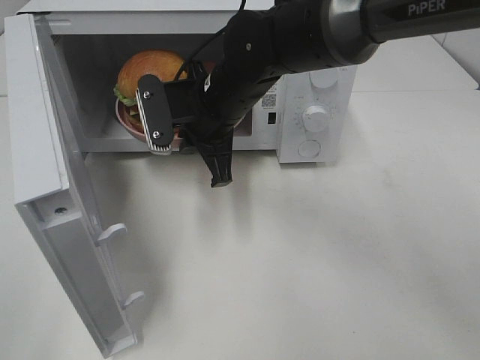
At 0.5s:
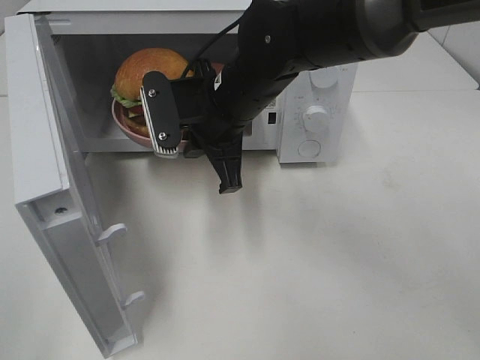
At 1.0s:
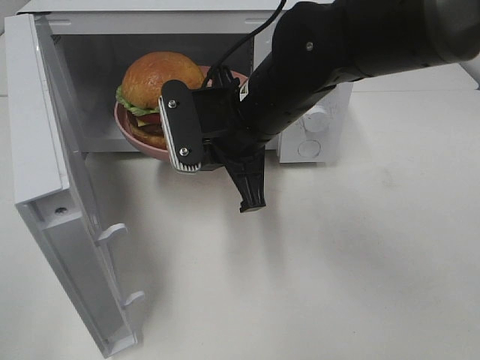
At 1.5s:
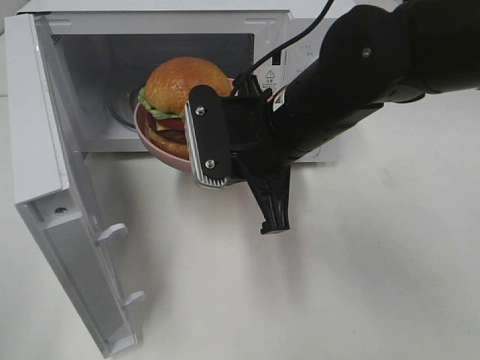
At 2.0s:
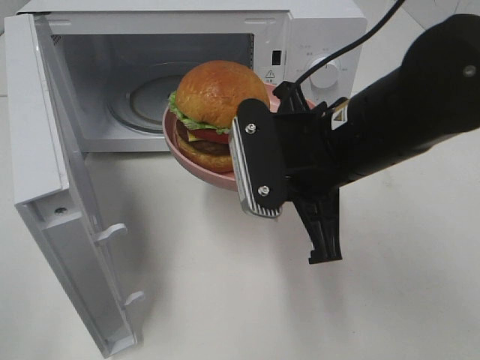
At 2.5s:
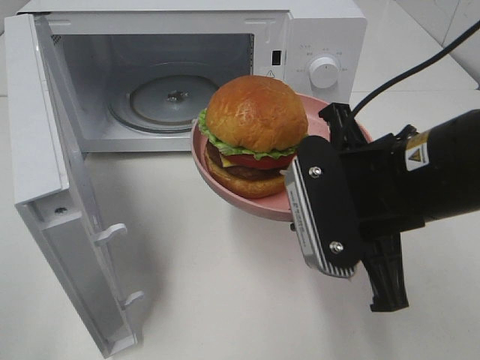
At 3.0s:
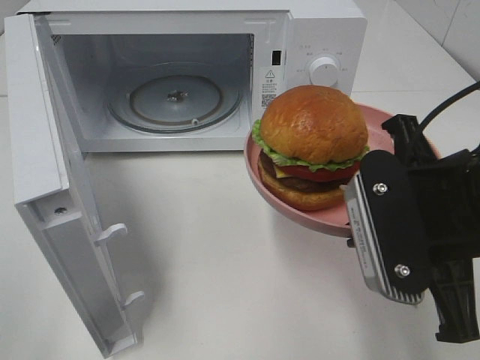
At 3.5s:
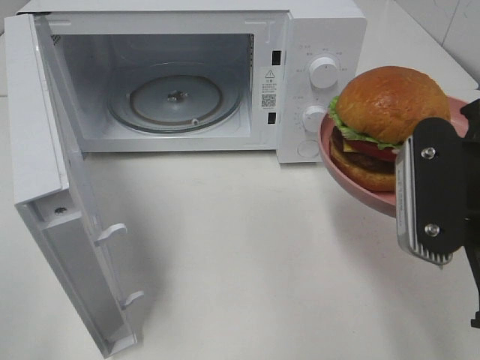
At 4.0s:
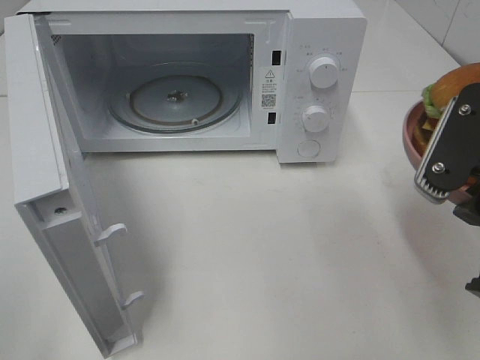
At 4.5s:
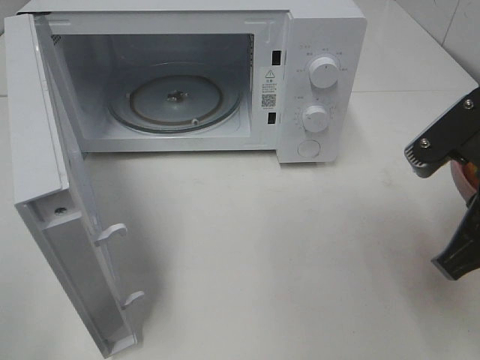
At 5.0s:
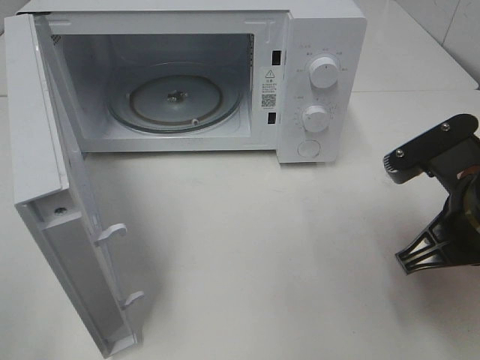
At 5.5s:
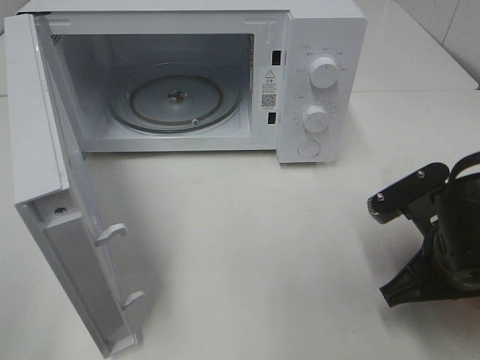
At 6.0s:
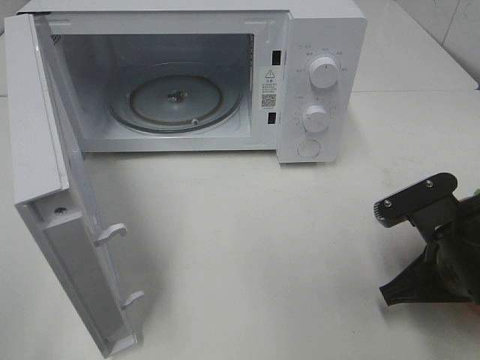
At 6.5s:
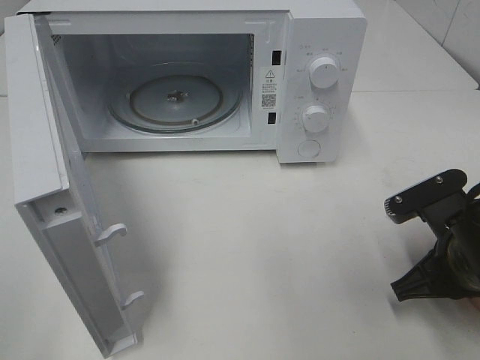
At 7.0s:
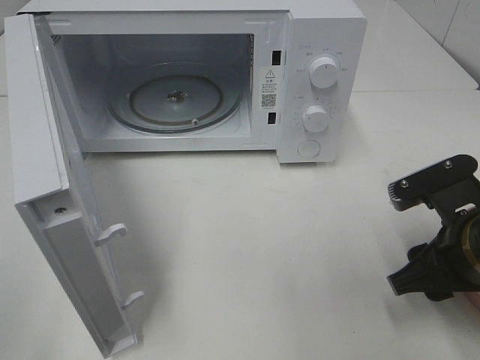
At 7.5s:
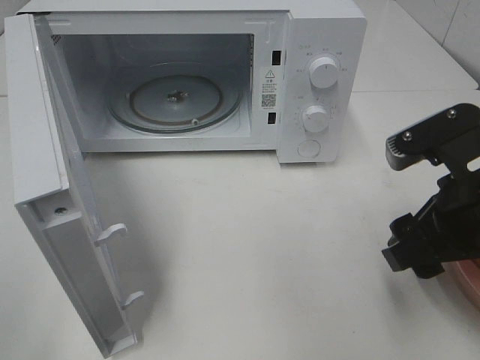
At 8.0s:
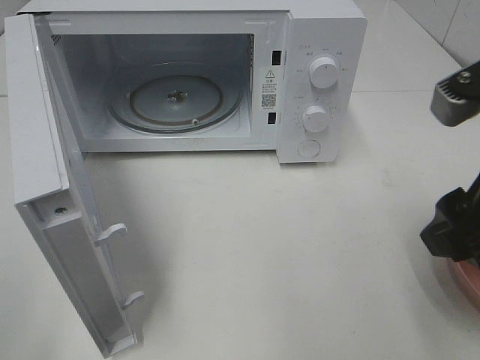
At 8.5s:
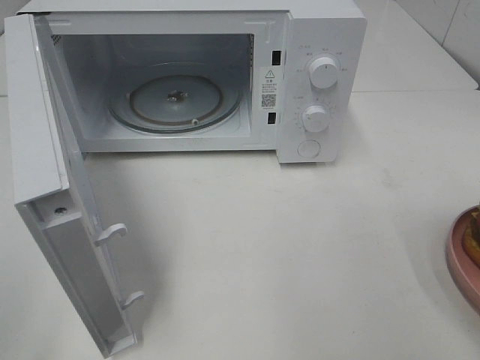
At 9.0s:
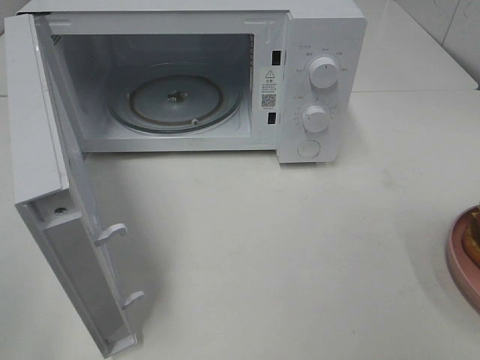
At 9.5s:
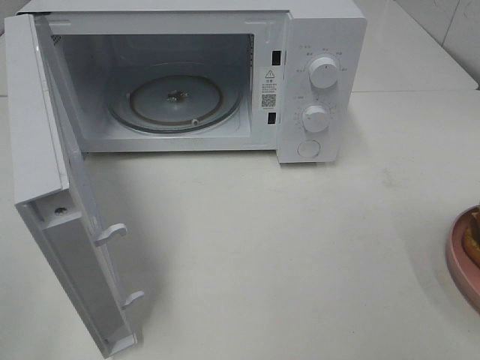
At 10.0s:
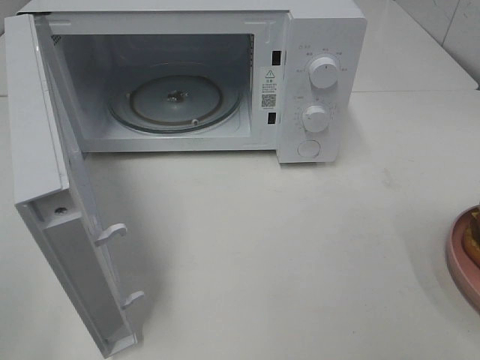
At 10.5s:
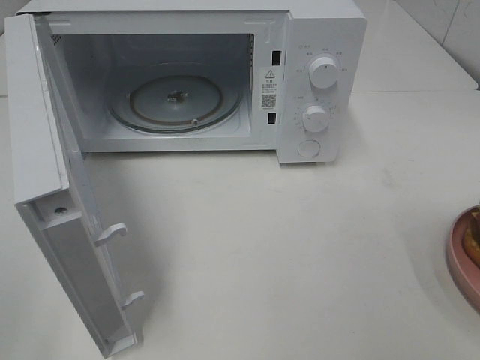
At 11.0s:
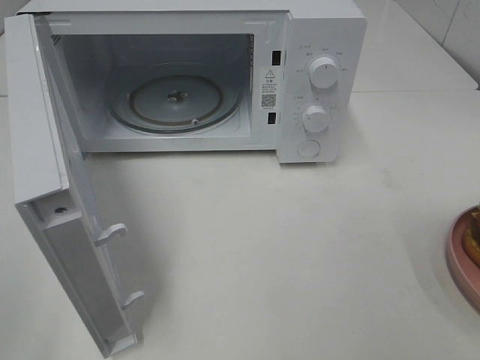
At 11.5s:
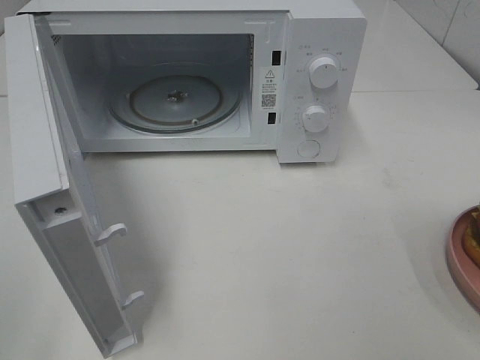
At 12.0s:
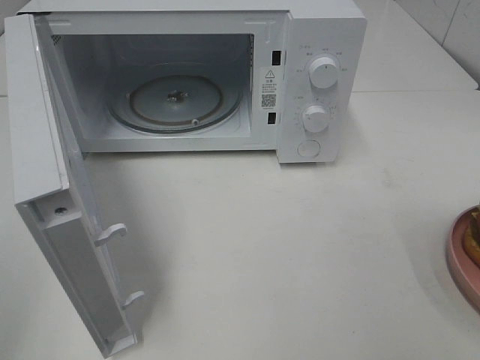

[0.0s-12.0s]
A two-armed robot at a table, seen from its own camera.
Task of the whole recording: Heat the burger.
Step, 0.0s to 6.5s: Right hand: place the plate on the table.
0.0s to 2.0s: The right gripper goes approximately 15 cm backward and to the right.
2.0s to 4.0s: The right gripper moves to the right and backward, roughly 15 cm.
4.0s to 6.0s: The right gripper shifts approximately 15 cm downward.
6.0s to 8.0s: The right gripper shifts approximately 15 cm upward, and opens.
8.0s to 10.0s: The right gripper heads backward and to the right, covering about 20 cm.

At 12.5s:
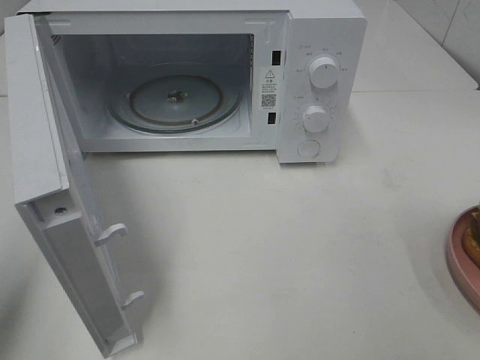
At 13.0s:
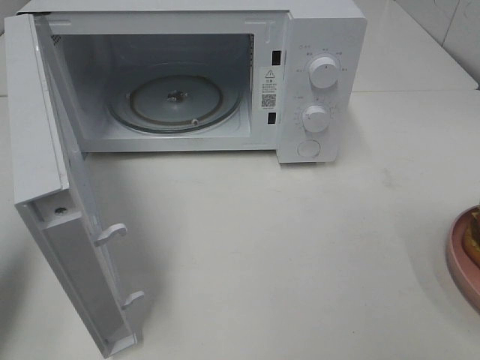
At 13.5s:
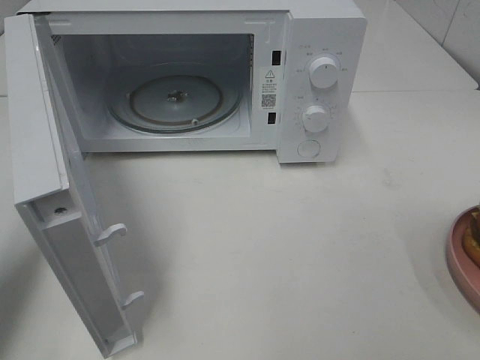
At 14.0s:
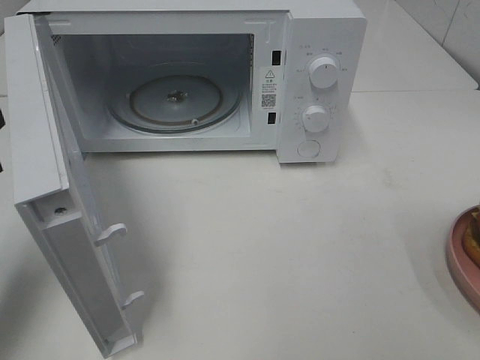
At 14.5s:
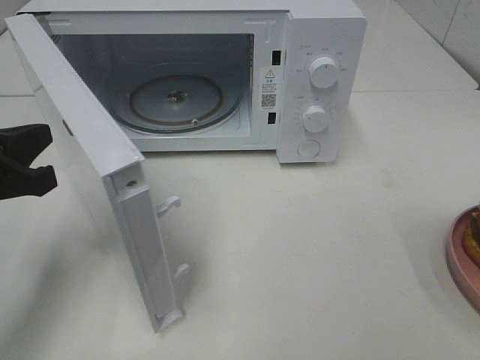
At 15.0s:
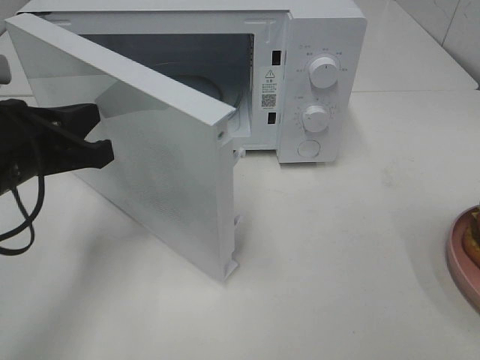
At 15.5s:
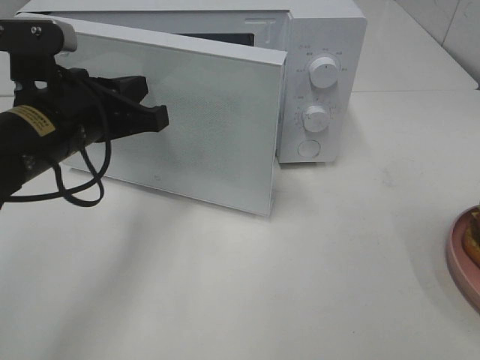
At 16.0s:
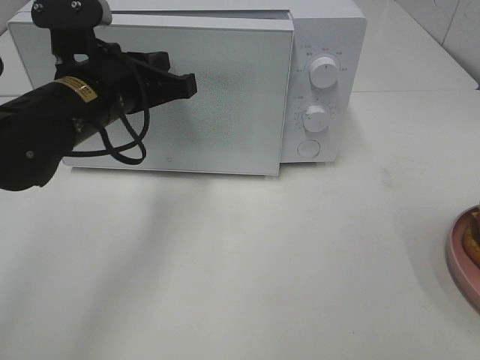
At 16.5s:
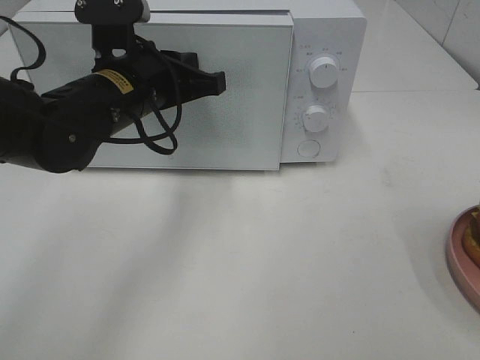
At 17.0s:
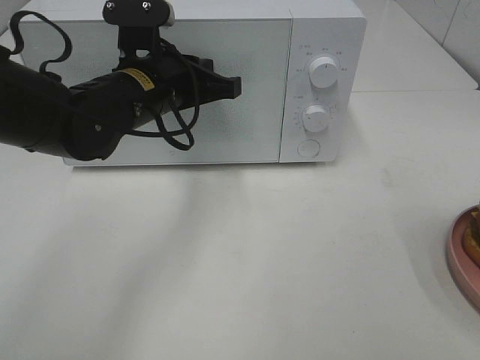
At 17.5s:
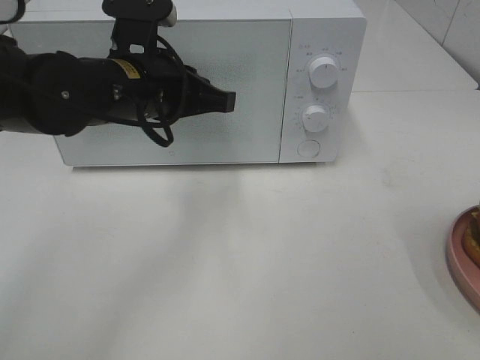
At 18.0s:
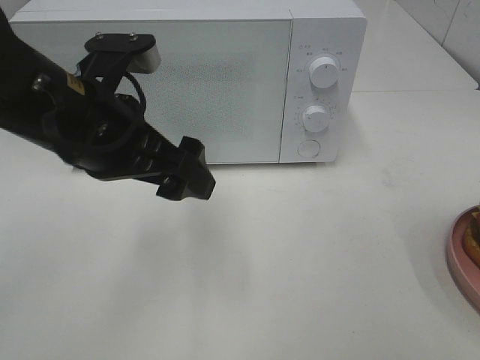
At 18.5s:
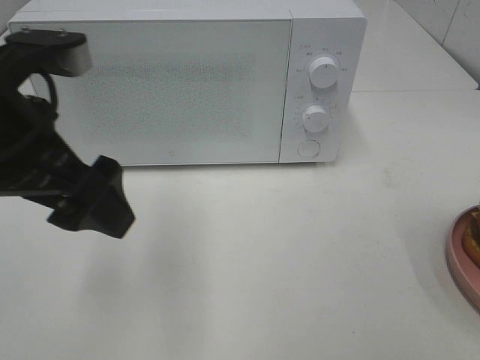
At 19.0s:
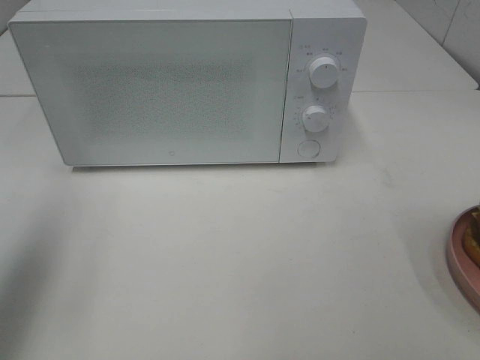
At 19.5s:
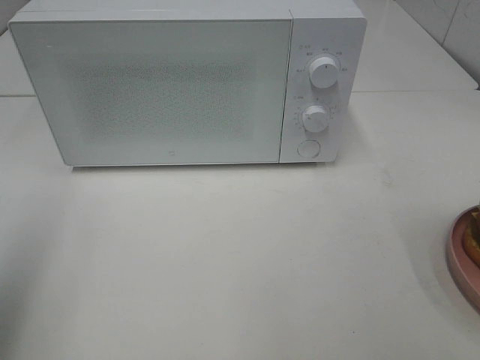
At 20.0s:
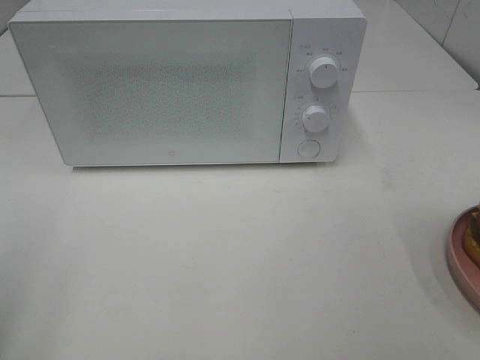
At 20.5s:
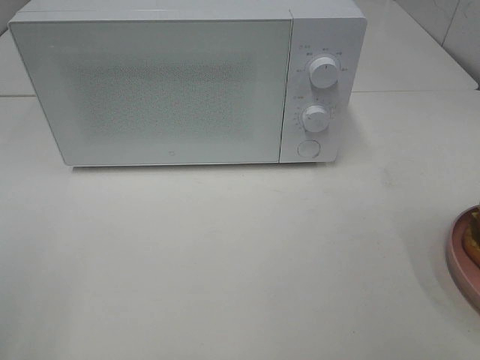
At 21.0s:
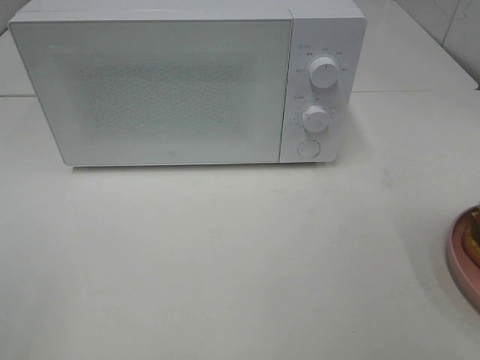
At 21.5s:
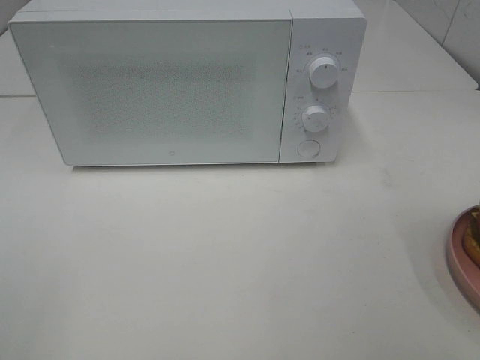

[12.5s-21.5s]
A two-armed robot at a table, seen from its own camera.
Task of the whole recording: Heat the burger.
Step, 12.5s to 17.0s: Left hand: close the microwave door.
12.5s to 14.5s: The left gripper is displaced downward, forward and to the right by some 15 cm.
14.5s to 17.0s: The left gripper travels to the right and forward by about 20 cm.
17.0s to 19.5s: The left gripper goes about 35 cm to the left, backward and upward, and opens its fingers.
19.5s to 21.5s: The left gripper goes about 15 cm backward and downward.

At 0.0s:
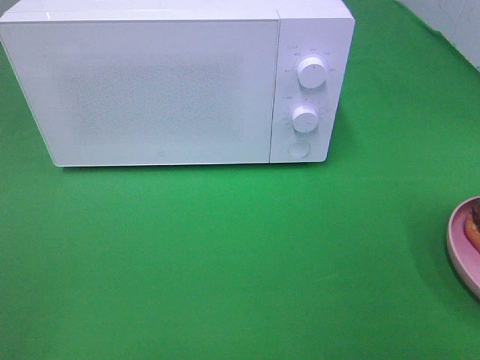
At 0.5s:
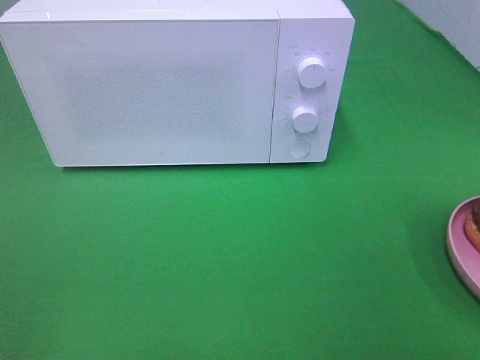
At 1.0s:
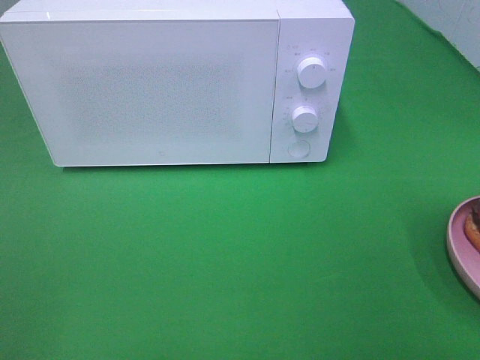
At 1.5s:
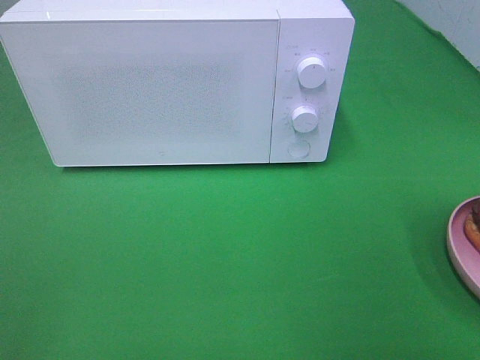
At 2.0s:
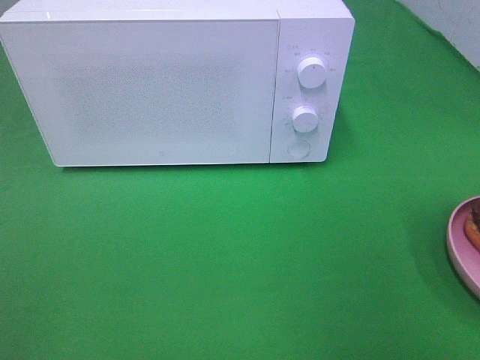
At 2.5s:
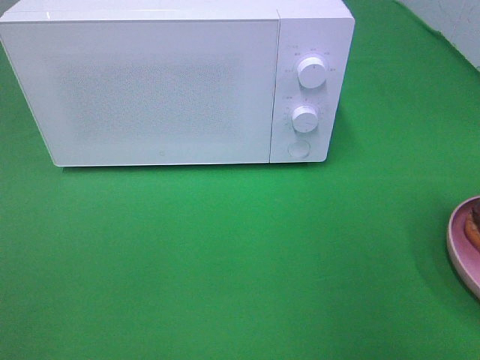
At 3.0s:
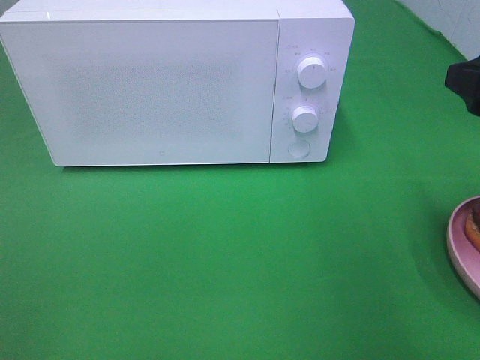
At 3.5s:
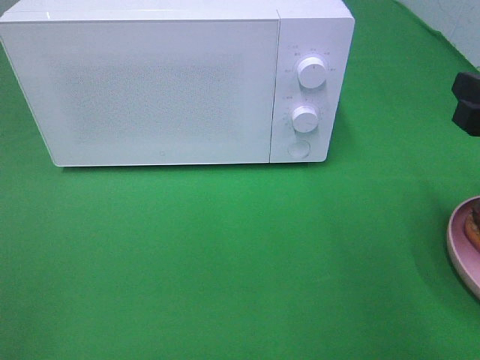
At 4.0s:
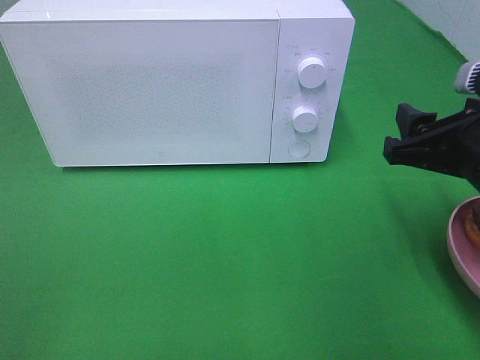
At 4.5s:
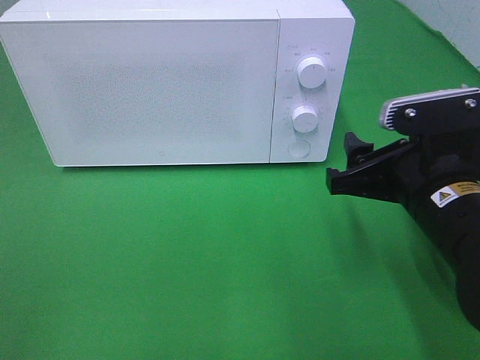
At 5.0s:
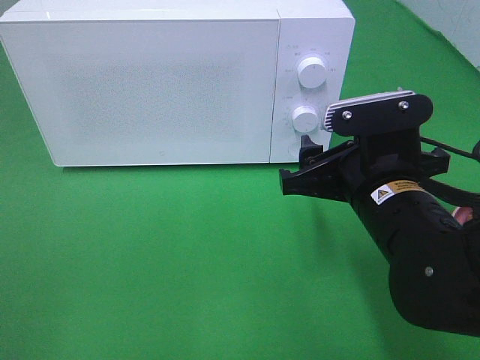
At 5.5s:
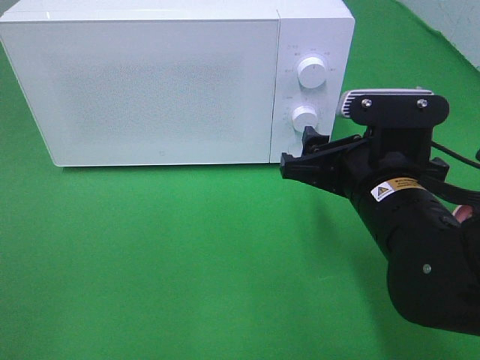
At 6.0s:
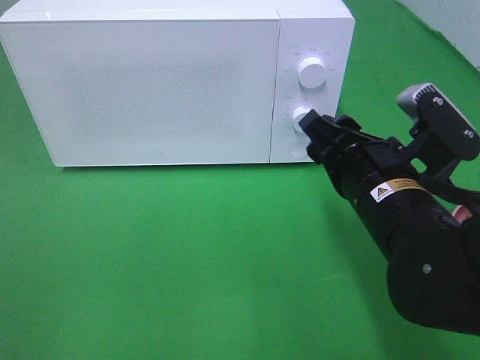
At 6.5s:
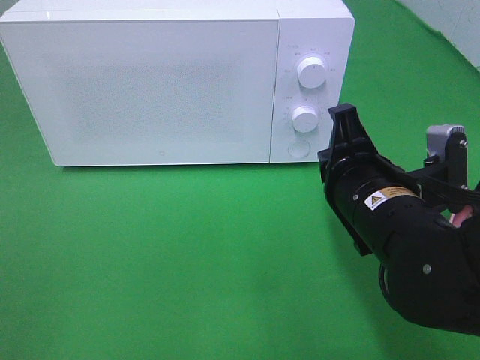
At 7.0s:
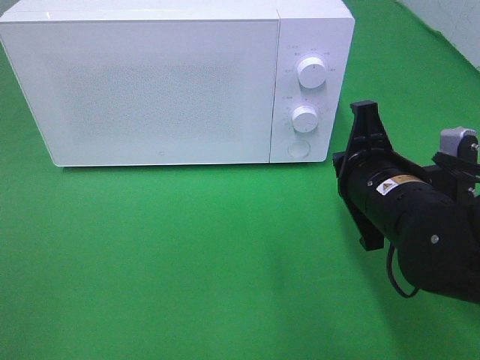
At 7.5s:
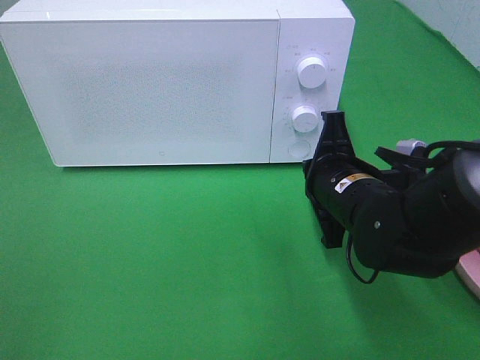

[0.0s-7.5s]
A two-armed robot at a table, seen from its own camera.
Task of the whole recording: Heat the burger.
2.0s to 4.0s: The right gripper goes approximately 20 cm downward, forward and to the left.
4.0s to 5.5s: The right gripper heads to the left, covering some 10 cm.
5.5s to 7.5s: The right gripper changes place by approximately 5 cm, and closes its fingers.
